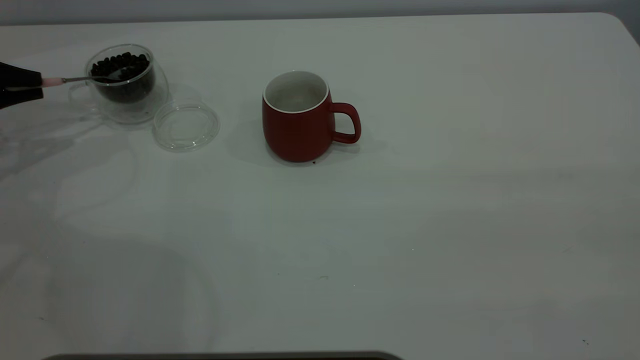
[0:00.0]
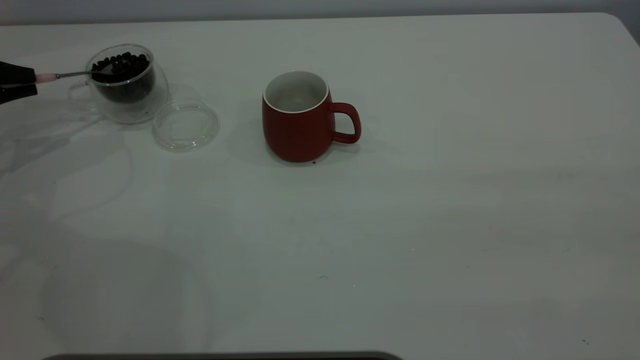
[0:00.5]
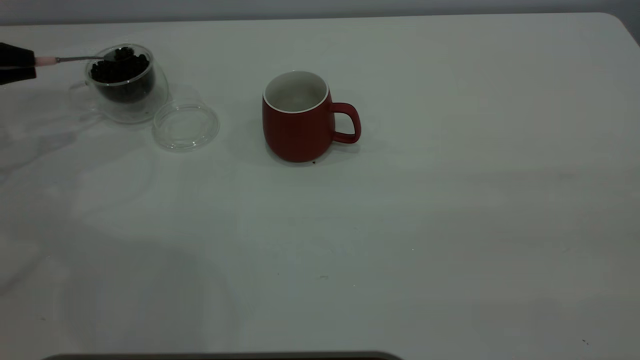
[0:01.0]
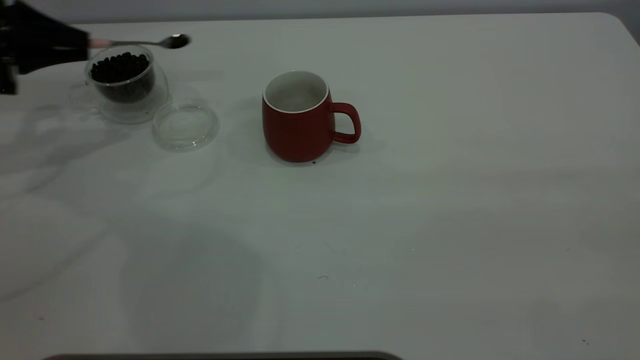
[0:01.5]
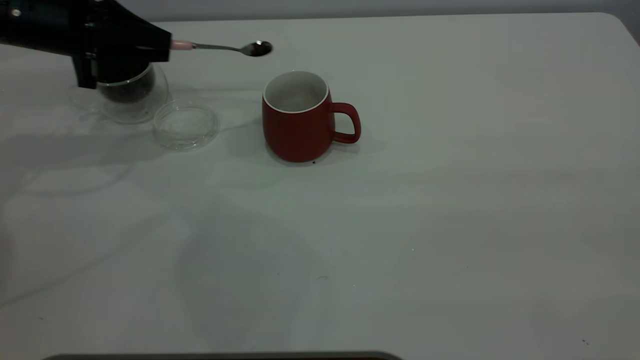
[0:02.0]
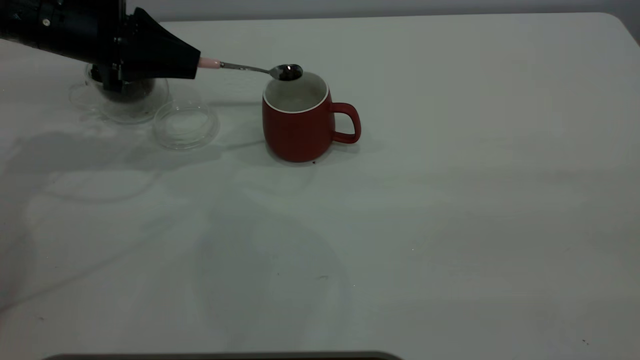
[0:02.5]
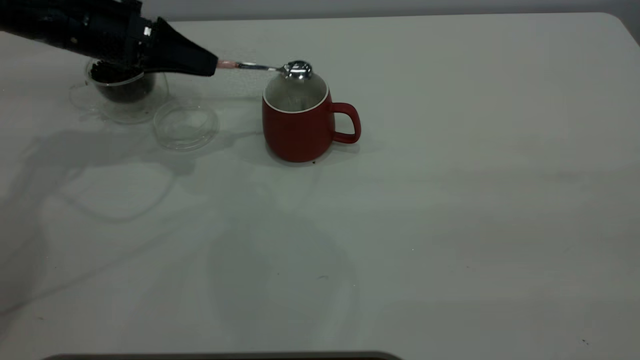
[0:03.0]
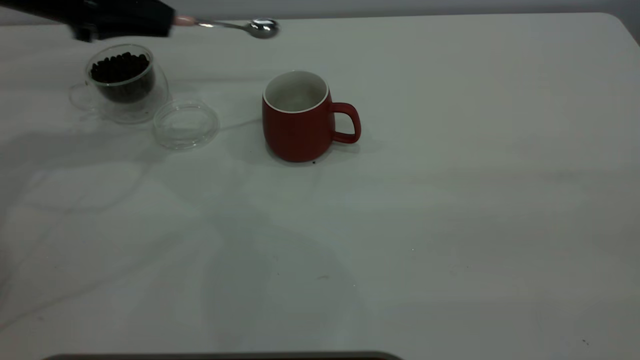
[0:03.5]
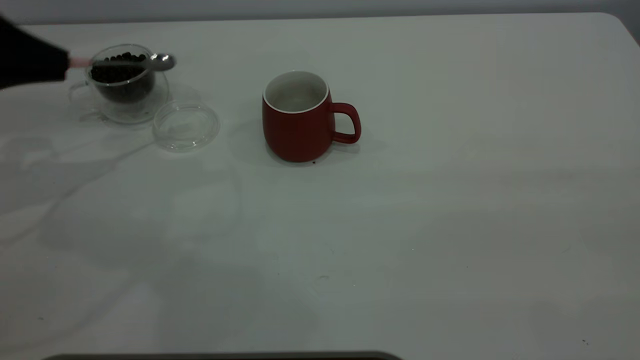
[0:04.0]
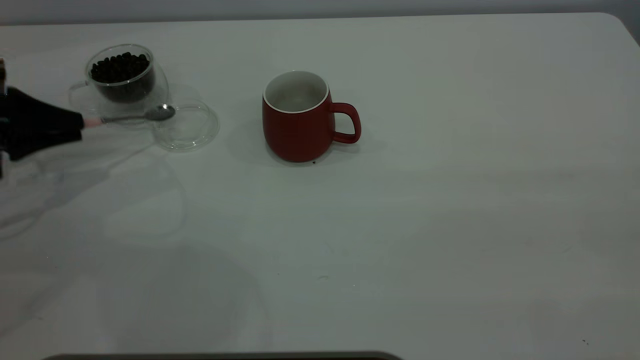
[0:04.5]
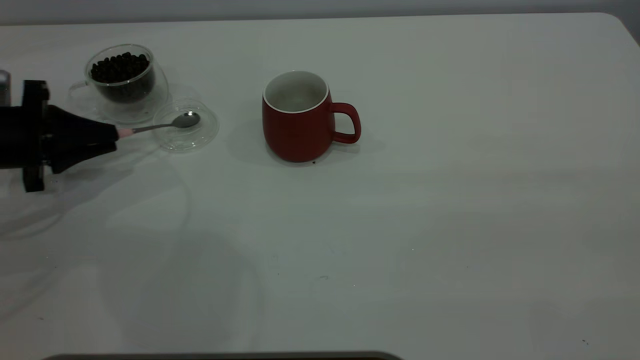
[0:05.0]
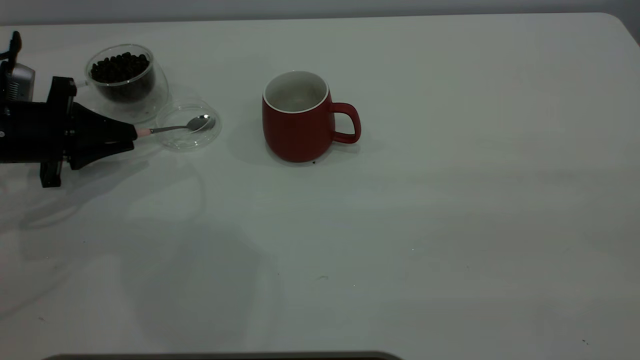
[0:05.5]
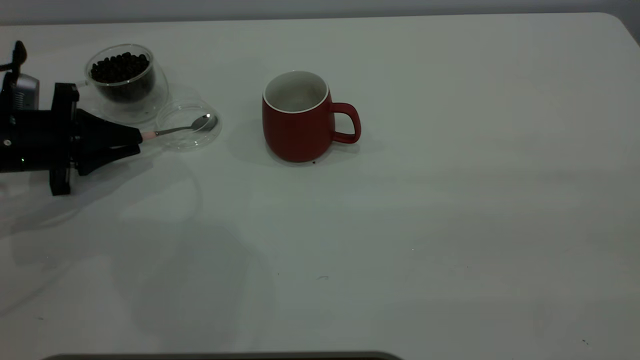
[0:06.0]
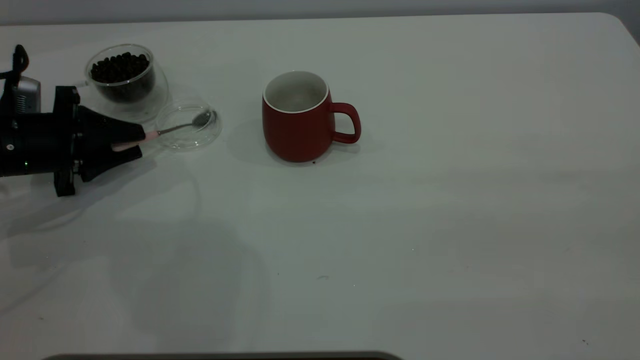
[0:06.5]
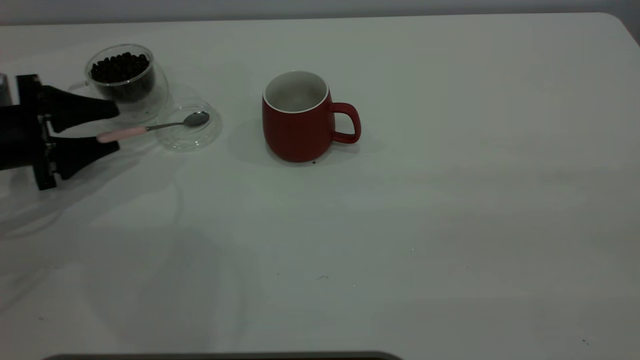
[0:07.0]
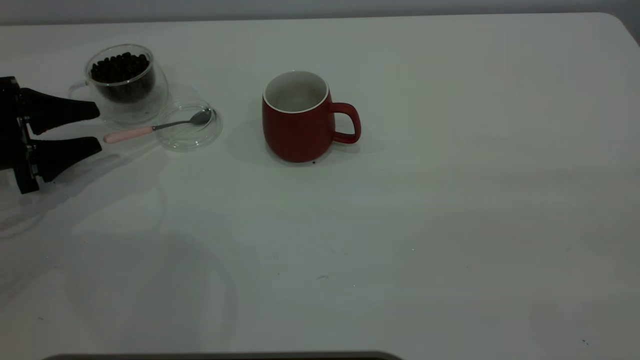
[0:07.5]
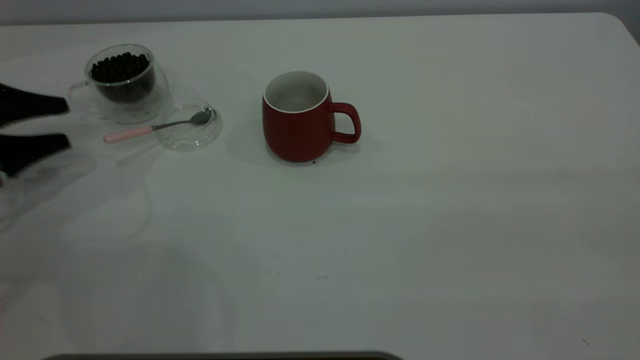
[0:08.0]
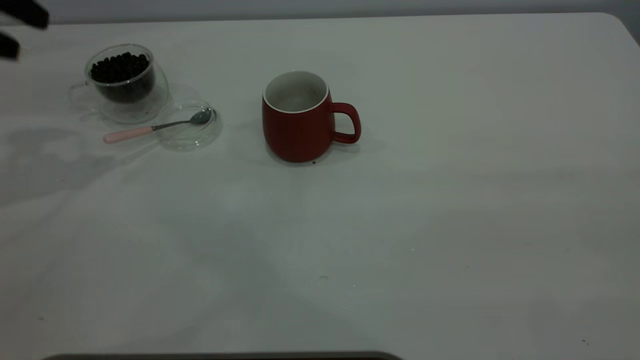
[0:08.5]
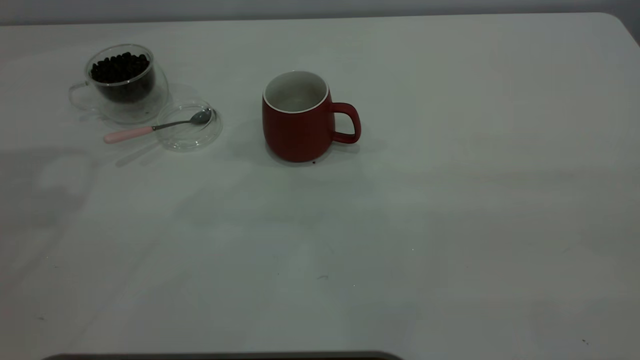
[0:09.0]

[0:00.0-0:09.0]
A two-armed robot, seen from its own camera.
Task of the whole recording: the right gripper place the red cup in the center of the table, the left gripper take the pink spoon from the cup lid and scoop out the coffee beans from the coffee cup and put them into the red cup, the left gripper put the spoon back into the cup lid.
Step, 0:00.0 to 0:03.5: Scoop a spoonful of beans into the cup.
Step, 0:04.0 to 0:08.0: Place the spoon back in its original place.
0:00.0 to 0:02.0: The left gripper is displaced to the right by some 15 cm.
0:02.0 to 0:04.5: The left gripper is displaced backward, to the left and downward by about 15 cm.
0:04.5 to 0:07.0: The left gripper opens its fingers.
0:07.0 to 0:09.0: The left gripper heads upward, covering some 35 cm.

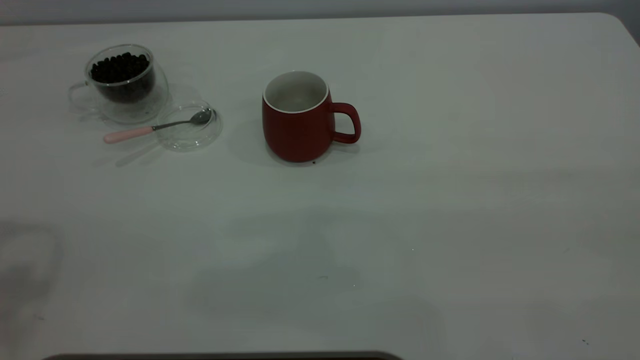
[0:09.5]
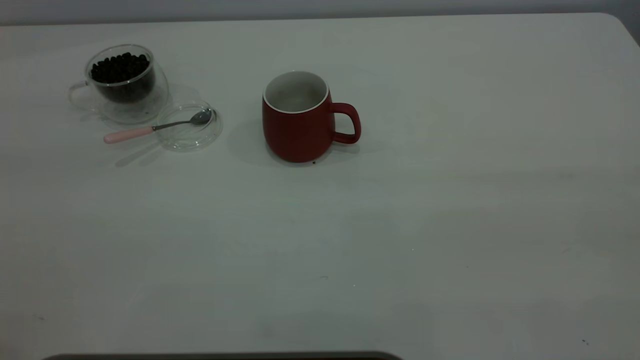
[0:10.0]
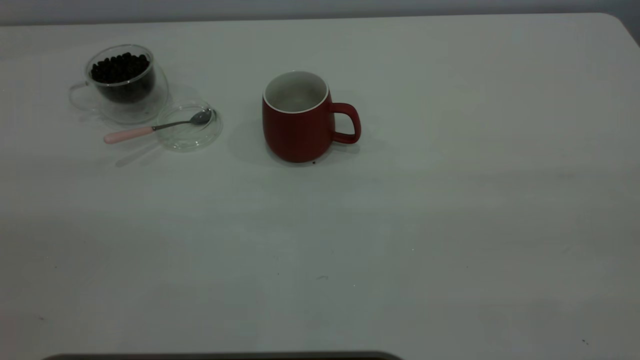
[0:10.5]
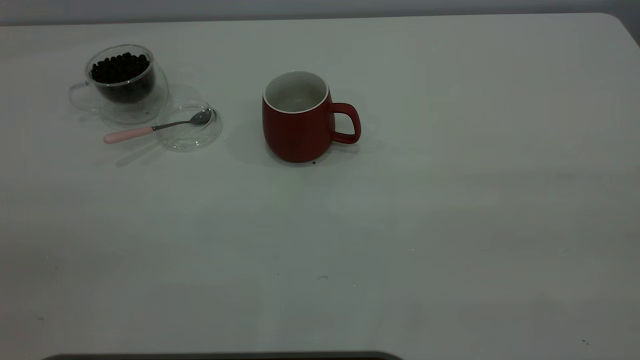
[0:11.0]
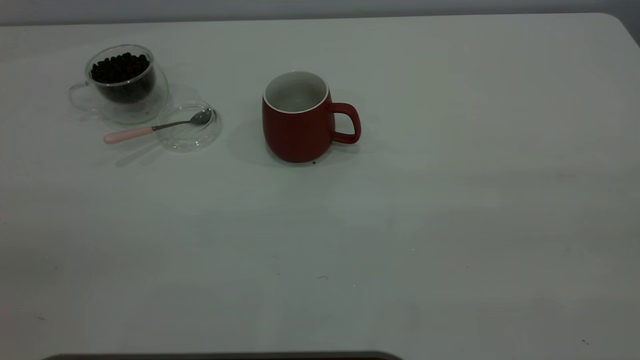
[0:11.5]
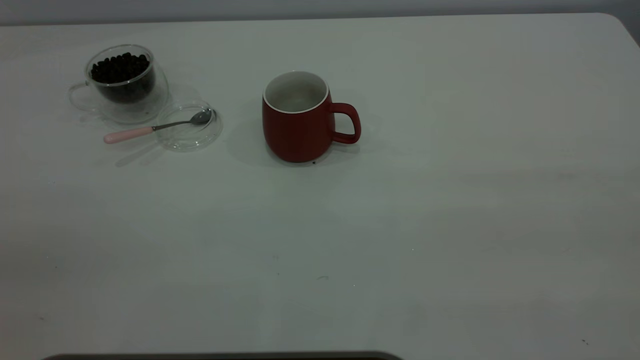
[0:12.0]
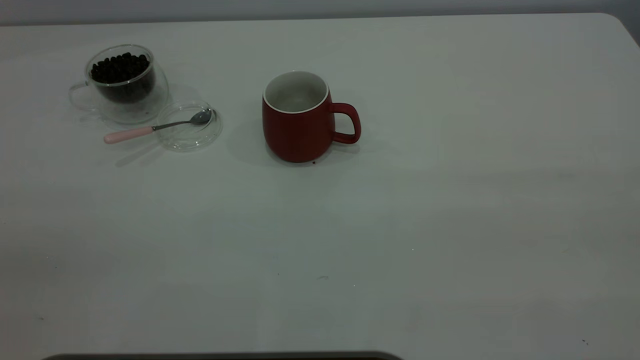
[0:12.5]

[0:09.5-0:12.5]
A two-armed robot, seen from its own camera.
Task of the whole recording: the right gripper place the red cup in the center of the table, the left gripper take the pink spoon from the cup lid and scoop out the coffee beans from the coffee cup and put them into the red cup, the left gripper put the spoon back into the cup lid.
0:11.0 to 0:12.5: Neither gripper changes place.
